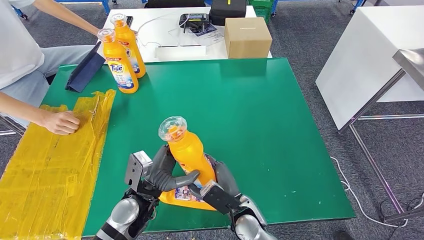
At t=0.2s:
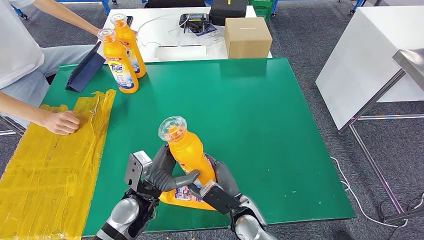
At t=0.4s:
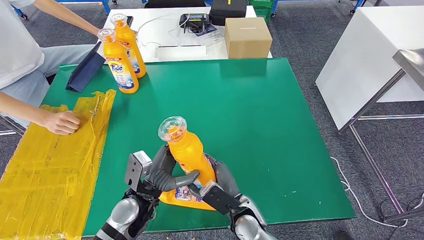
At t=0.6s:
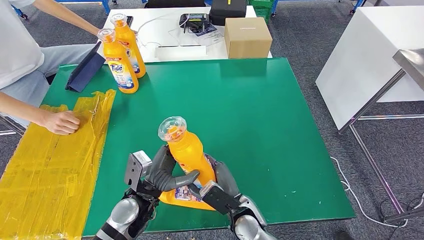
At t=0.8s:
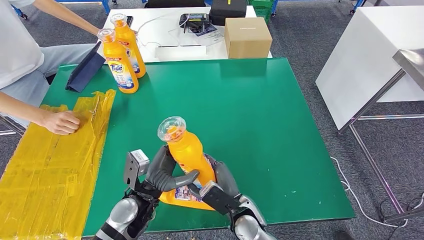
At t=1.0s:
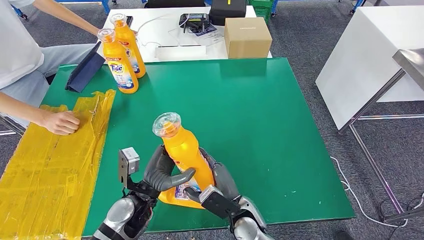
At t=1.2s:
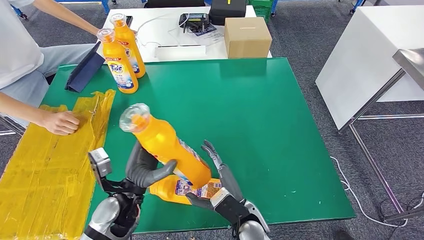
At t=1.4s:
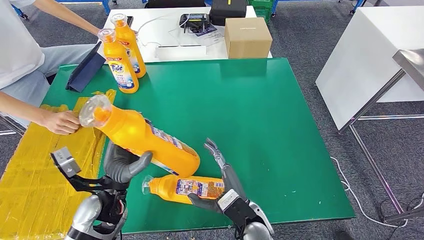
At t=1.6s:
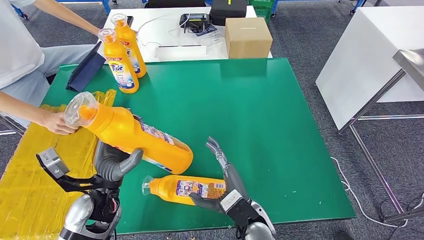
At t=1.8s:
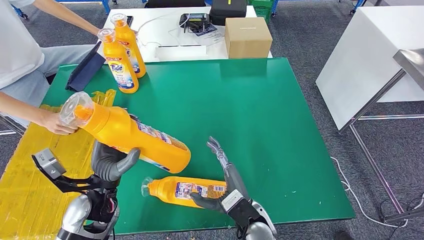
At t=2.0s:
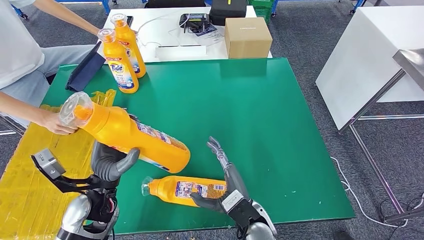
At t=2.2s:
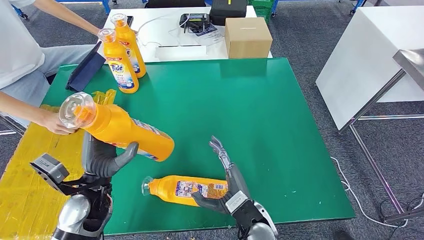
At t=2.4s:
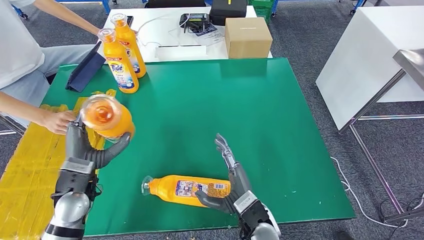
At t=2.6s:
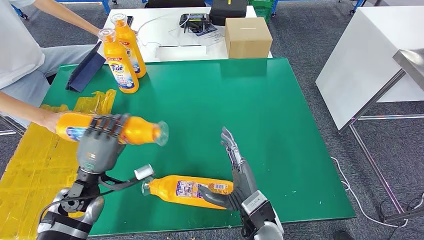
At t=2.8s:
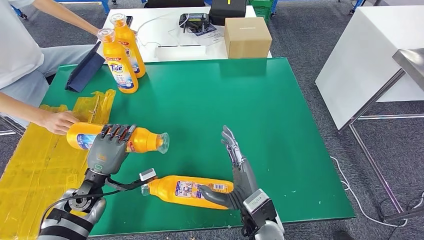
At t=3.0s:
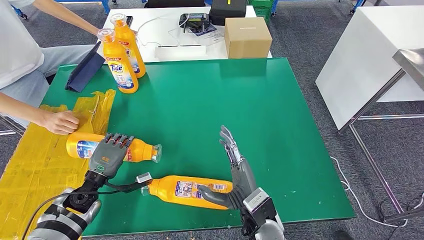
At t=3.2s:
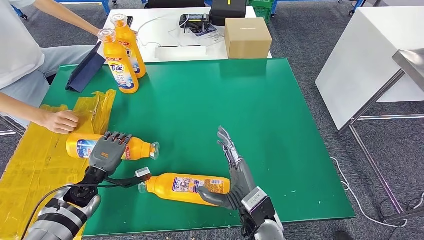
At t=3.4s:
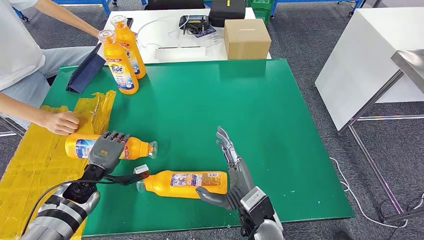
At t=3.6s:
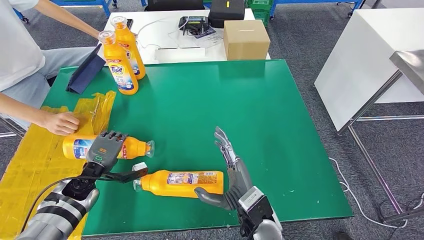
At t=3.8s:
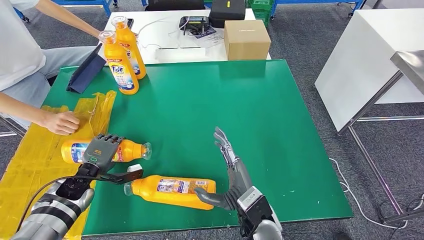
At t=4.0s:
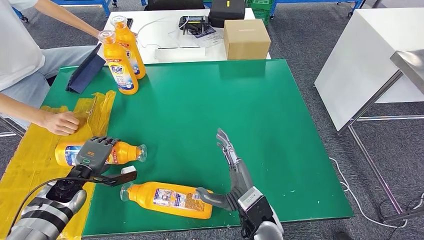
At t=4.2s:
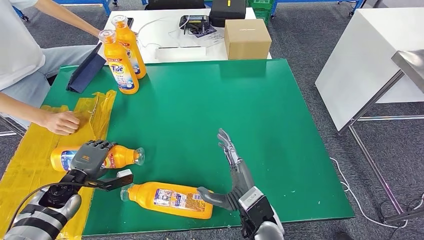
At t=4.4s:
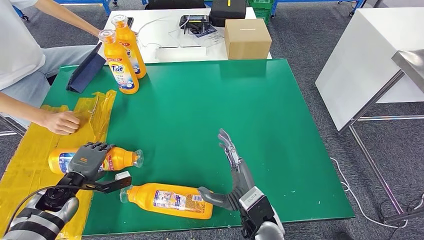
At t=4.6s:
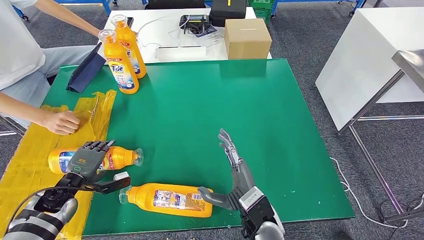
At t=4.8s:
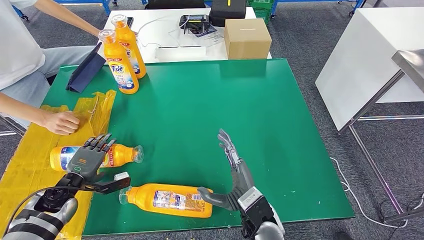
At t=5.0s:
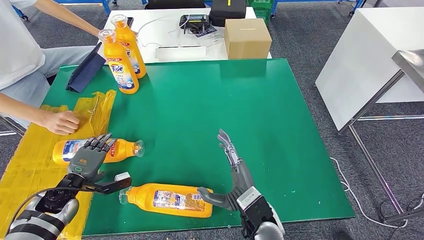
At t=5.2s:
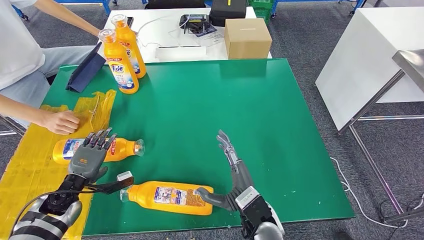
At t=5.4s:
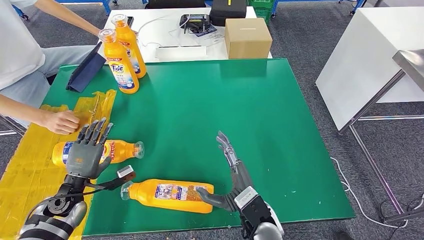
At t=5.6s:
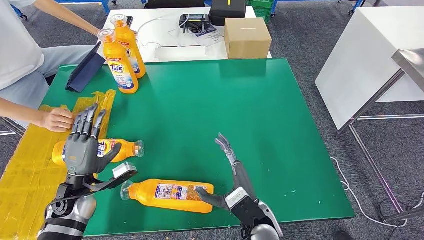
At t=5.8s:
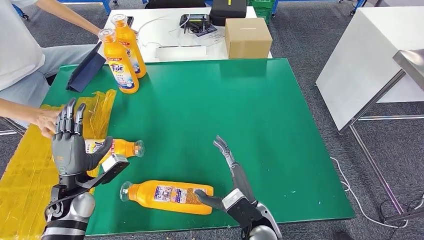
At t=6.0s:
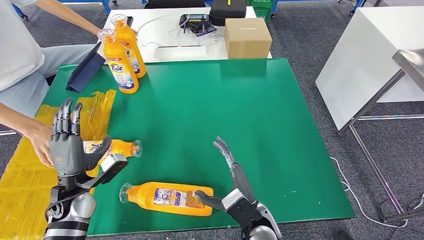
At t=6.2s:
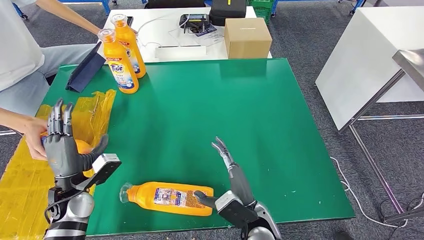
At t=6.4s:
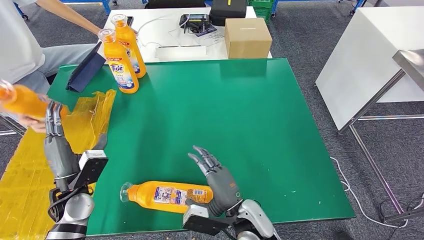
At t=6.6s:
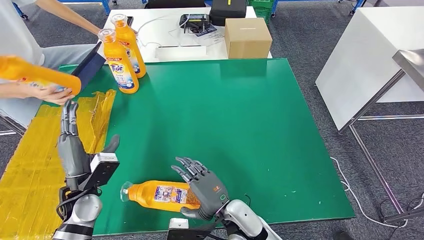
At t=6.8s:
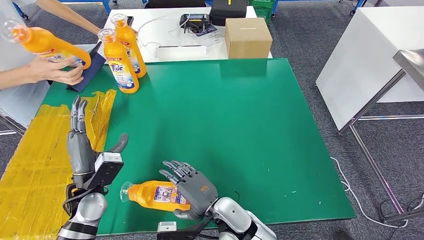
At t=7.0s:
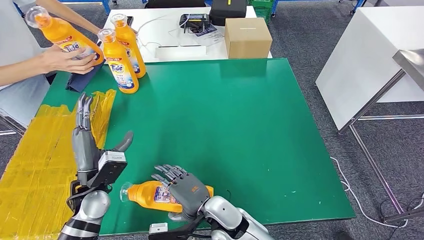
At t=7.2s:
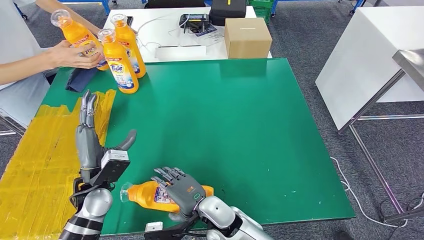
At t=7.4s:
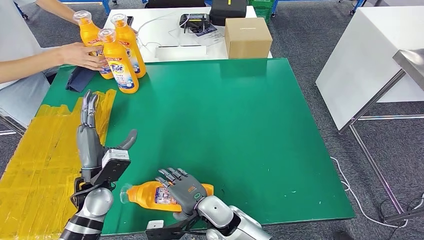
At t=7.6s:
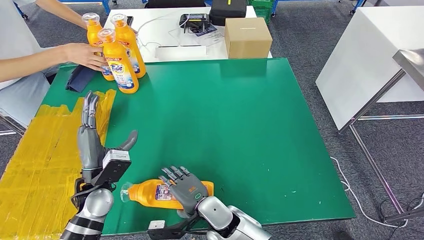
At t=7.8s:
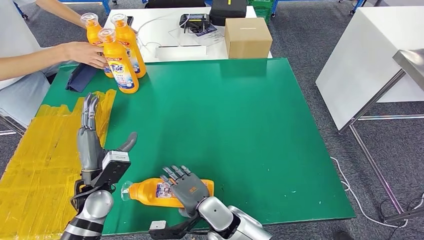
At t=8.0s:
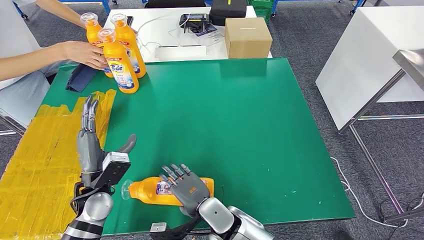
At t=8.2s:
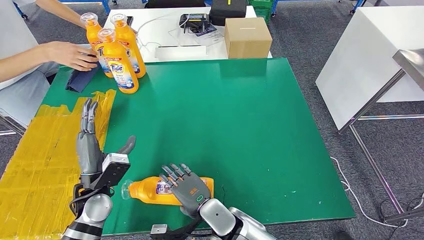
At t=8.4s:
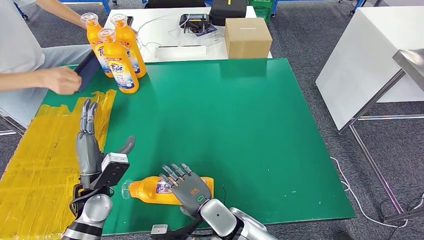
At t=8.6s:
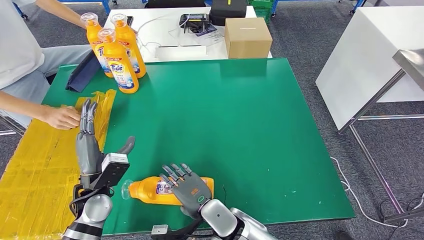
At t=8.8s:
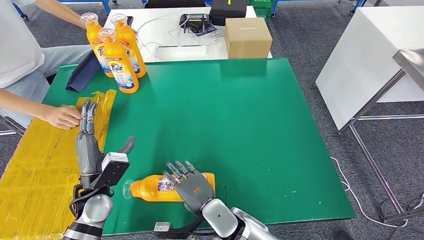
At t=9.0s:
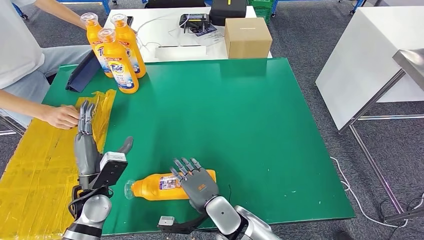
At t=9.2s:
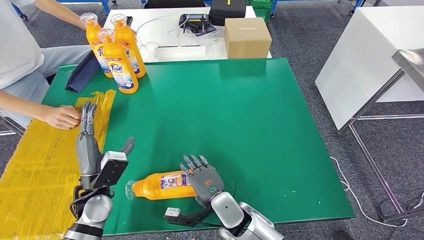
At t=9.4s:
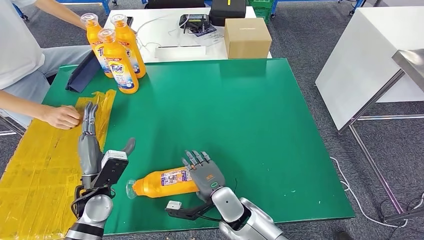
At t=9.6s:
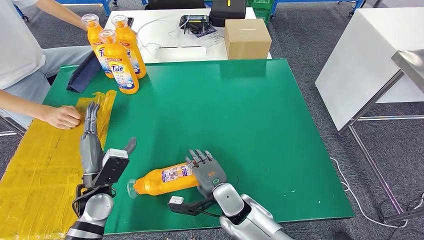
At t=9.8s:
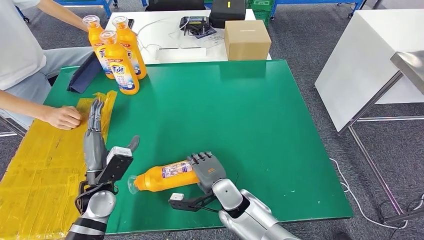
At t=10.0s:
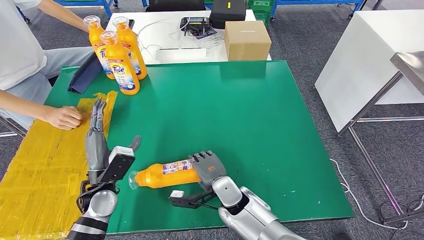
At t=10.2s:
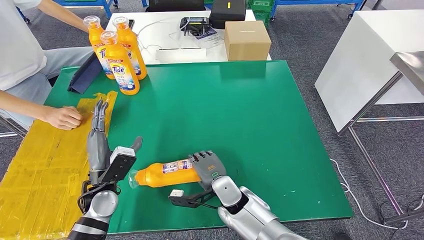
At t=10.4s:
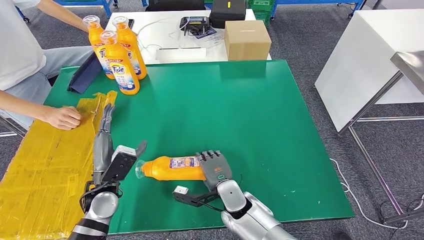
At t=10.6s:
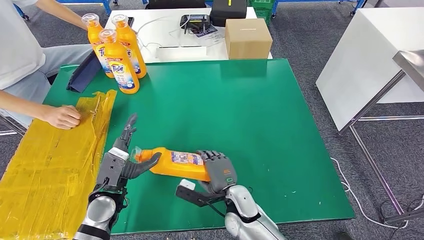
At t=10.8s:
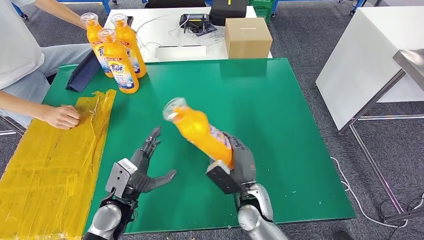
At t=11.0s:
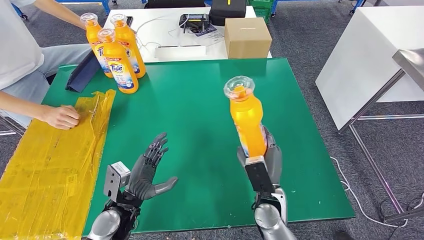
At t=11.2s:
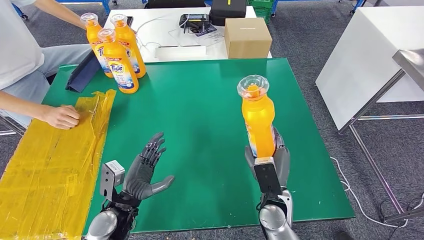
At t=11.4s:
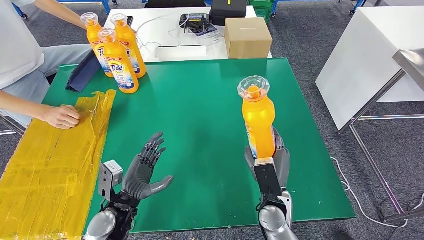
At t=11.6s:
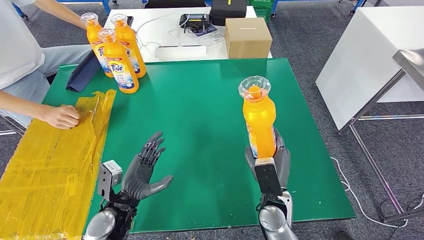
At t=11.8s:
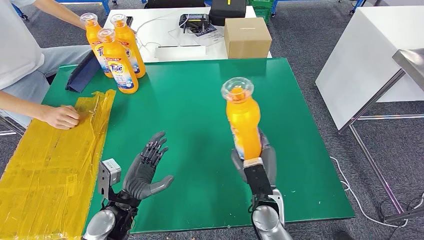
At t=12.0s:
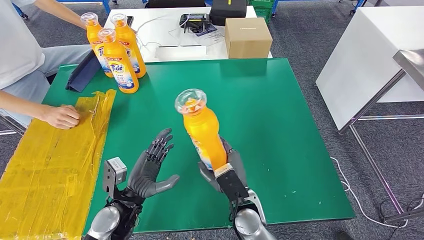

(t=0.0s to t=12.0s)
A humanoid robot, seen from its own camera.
Step, t=0.0s - t=5.6s: Flip the fast-moving consumer goods bottle to the front side.
Step, t=6.2s - t=11.0s: Pick up the fast-moving consumer goods bottle from the table.
t=0.0s - t=1.6s: The left hand moves to the left, about 5 cm.
t=1.6s - t=3.0s: The left hand shifts roughly 15 cm downward and to the left.
t=3.0s - t=4.4s: The left hand shifts approximately 5 cm to the left.
t=4.4s - t=6.0s: The left hand goes about 10 cm to the right and upward.
t=6.0s - t=7.6s: The left hand moves to the right, roughly 5 cm. Meanwhile the right hand moves to the left, some 10 cm.
t=7.6s - t=9.0s: The hands move only a little.

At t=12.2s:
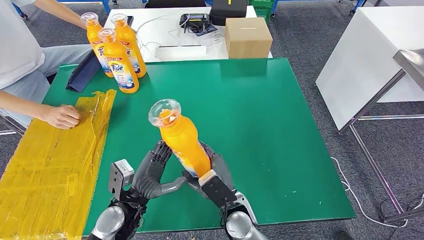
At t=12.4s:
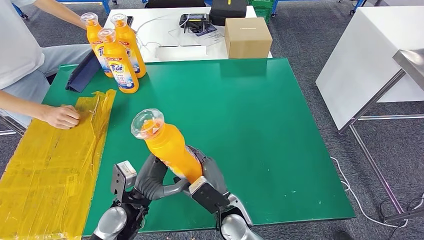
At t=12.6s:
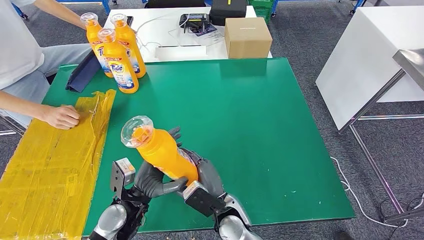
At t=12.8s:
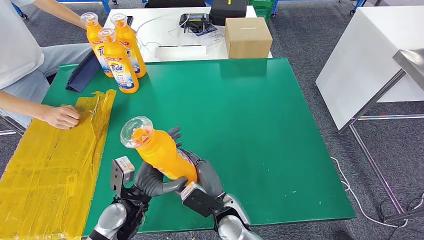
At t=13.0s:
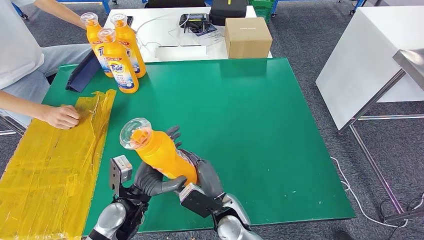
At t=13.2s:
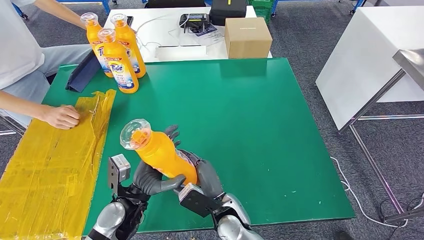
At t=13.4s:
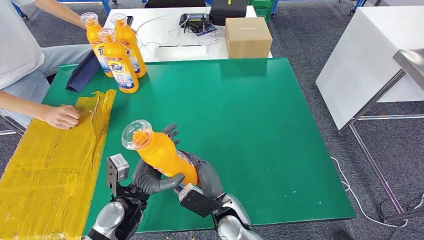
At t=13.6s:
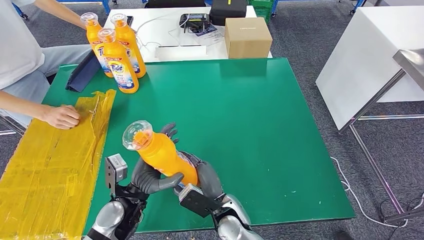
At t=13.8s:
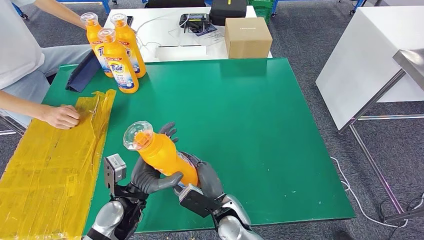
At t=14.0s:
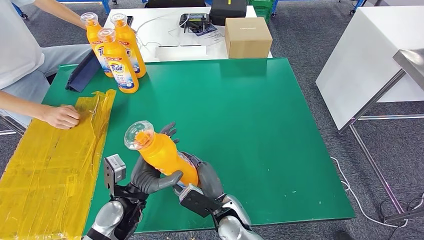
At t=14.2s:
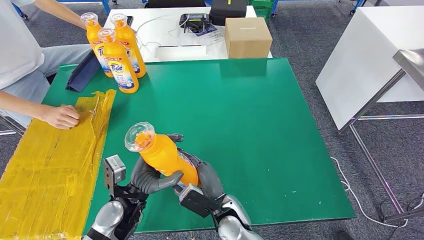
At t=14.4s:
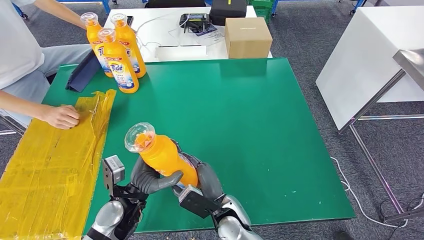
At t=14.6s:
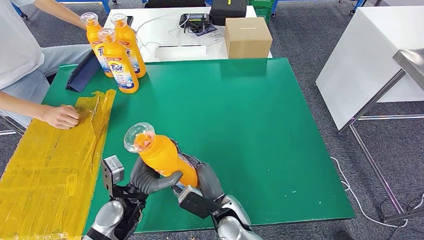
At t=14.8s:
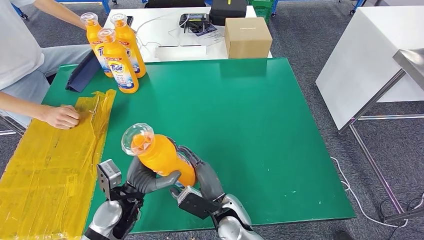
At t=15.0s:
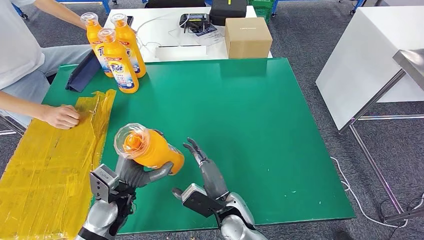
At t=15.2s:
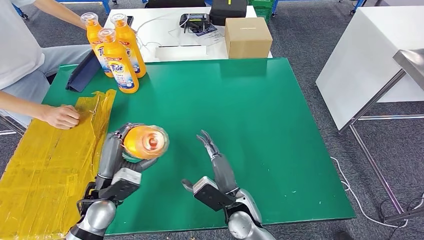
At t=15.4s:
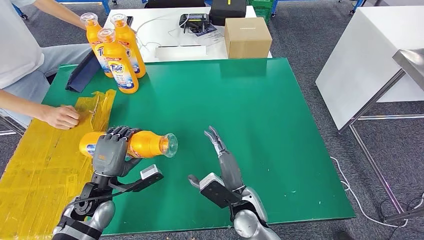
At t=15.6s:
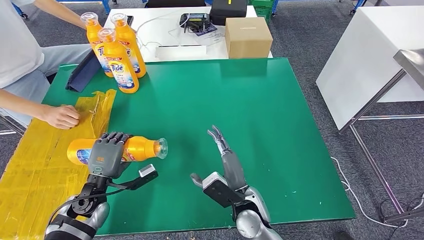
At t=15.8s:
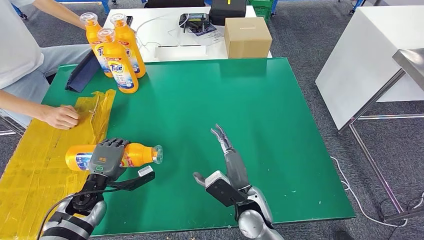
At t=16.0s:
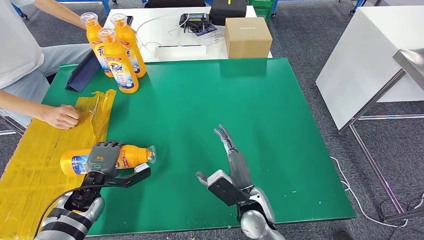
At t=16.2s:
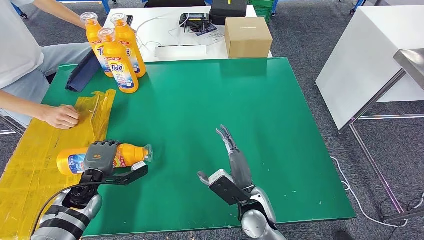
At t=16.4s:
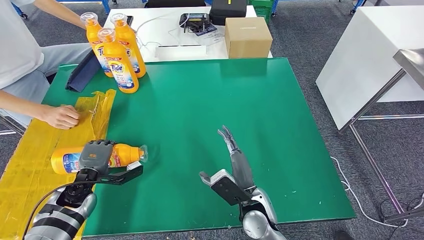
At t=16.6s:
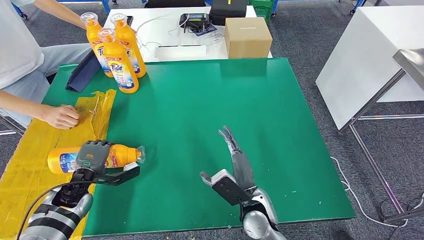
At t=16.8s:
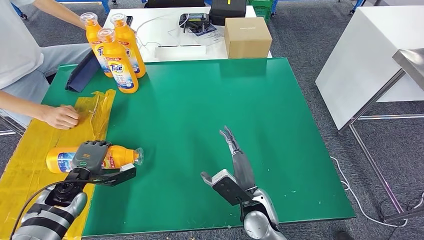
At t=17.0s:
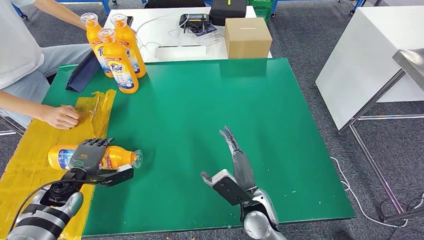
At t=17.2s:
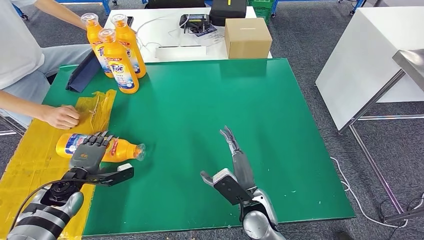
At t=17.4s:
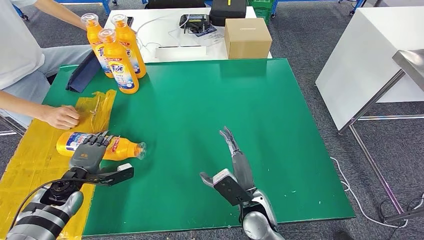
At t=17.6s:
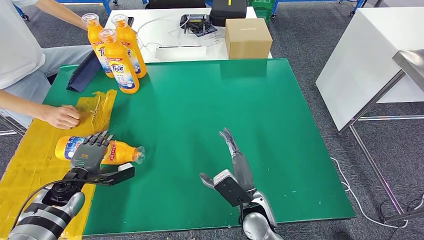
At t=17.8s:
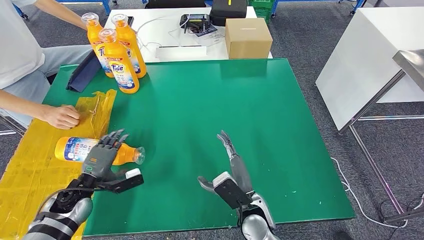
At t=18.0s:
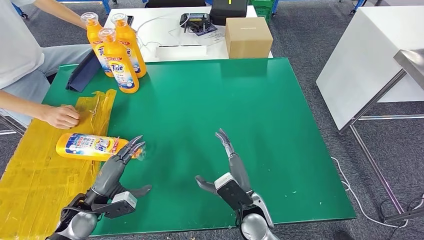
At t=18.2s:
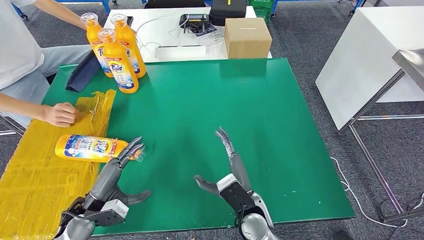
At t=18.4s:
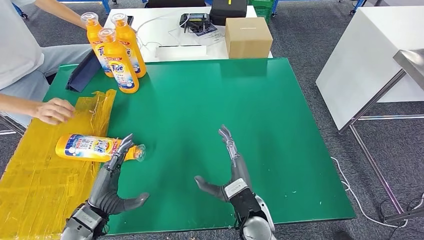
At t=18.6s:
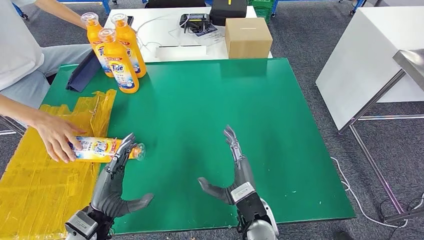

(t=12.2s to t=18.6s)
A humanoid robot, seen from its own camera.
Step, t=12.2s - t=18.6s: Flip the fast-moving consumer goods bottle to the front side.
t=12.2s - t=13.8s: There are only small adjustments of the hands.
t=13.8s - t=15.4s: The left hand heads to the left, covering approximately 10 cm.
t=15.4s - t=17.0s: The left hand moves to the left, roughly 10 cm.
t=17.0s - t=18.6s: The left hand shifts roughly 15 cm to the right and backward.
